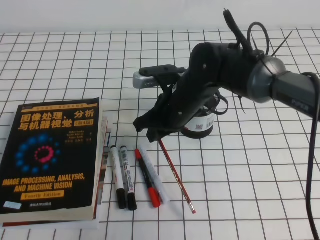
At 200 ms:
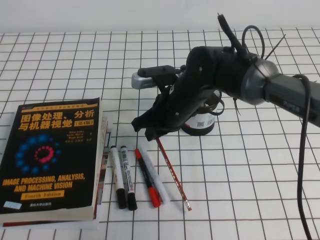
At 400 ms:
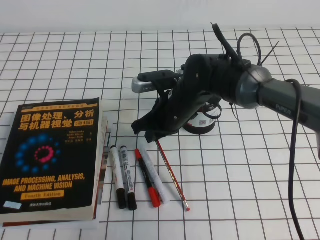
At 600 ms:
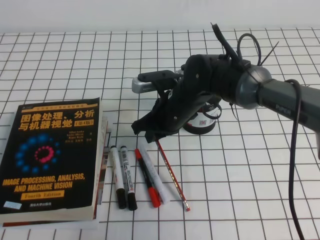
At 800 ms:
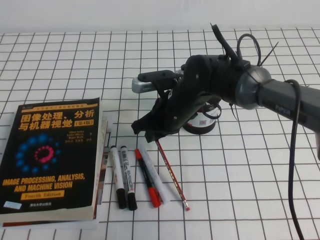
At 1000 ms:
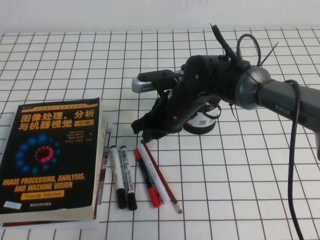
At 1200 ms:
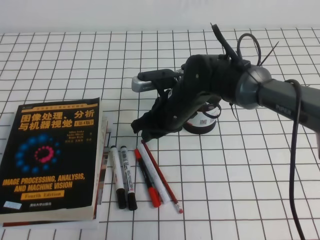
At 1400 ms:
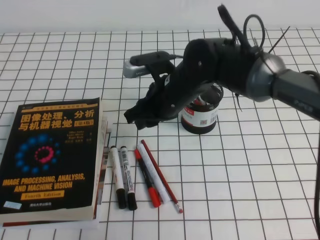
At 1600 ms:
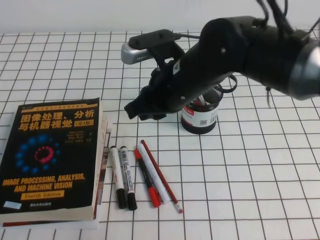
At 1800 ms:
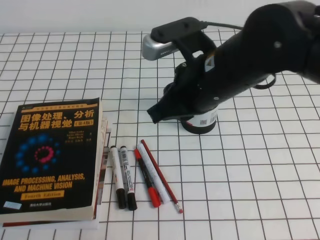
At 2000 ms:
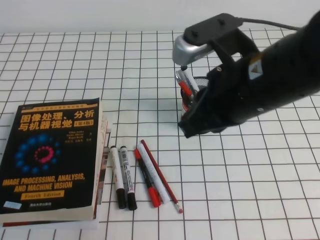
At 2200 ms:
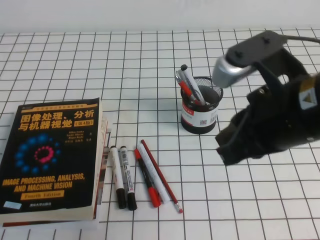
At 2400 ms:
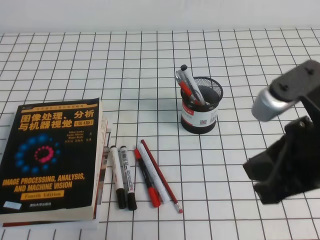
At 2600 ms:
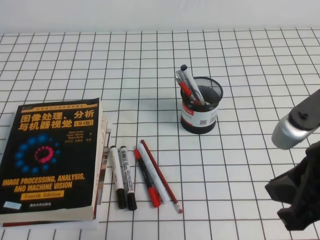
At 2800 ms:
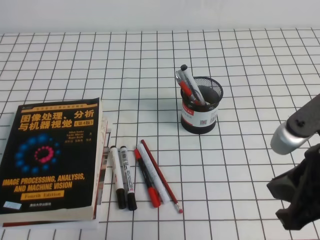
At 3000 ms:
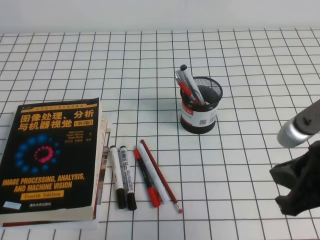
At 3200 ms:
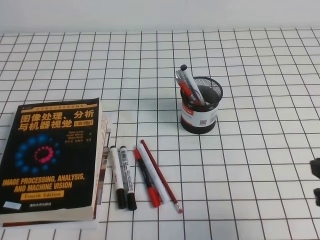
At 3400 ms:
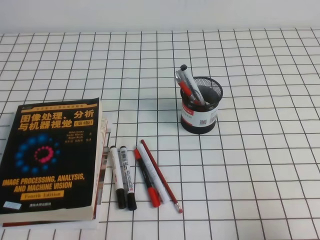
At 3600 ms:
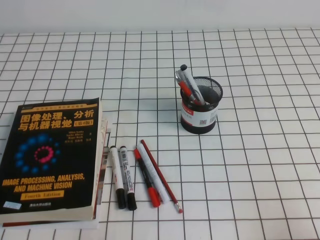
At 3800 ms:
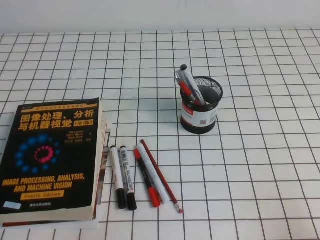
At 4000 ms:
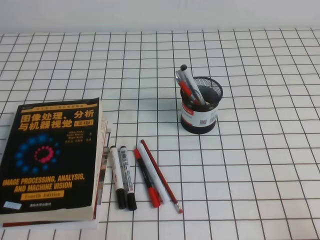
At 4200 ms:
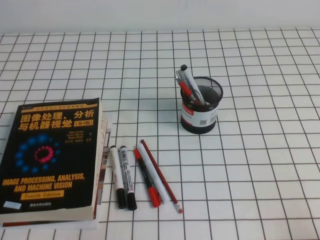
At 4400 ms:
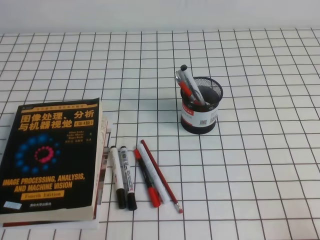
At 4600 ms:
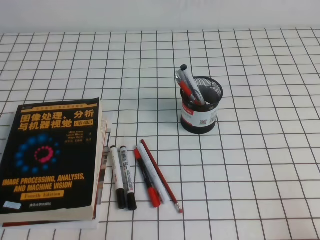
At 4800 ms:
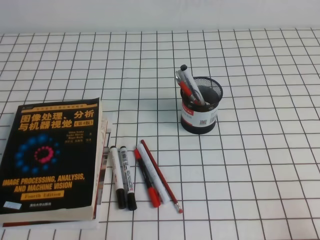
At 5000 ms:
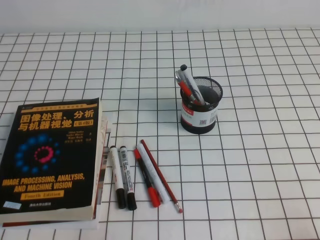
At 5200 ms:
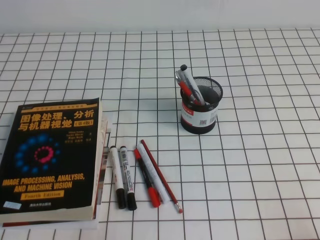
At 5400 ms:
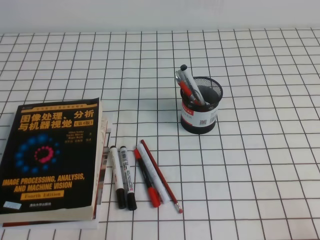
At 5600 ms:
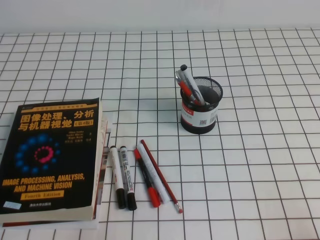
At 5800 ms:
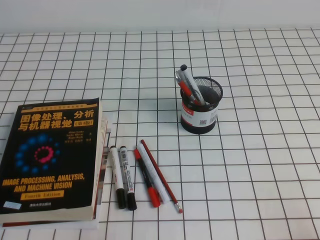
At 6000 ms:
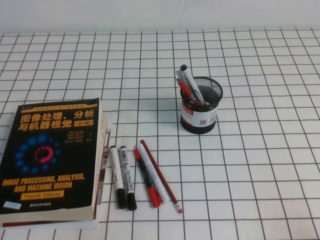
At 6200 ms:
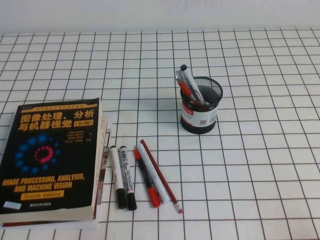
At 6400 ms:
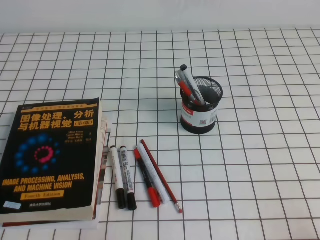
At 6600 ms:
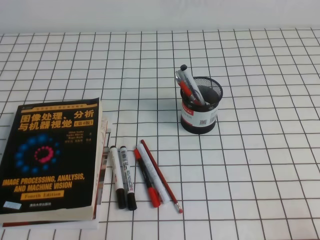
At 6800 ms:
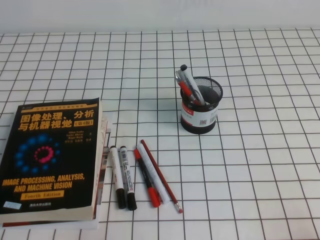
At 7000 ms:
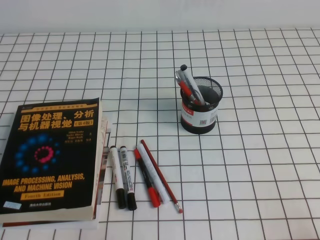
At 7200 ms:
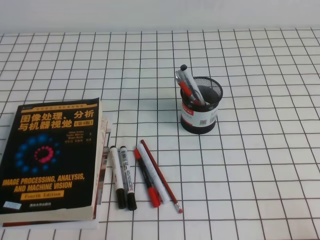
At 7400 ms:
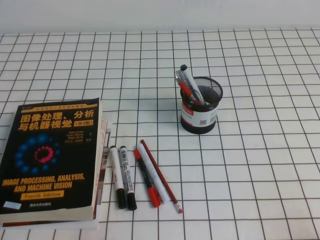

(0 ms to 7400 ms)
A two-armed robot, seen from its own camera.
Step, 0 ms - 7400 ms: Pick up the pen from the pen holder.
0 ms - 1400 ms: The right gripper opens.
1400 ms - 3000 ms: The right gripper moves backward and to the right, about 30 cm, and closes.
3000 ms - 4400 ms: The right gripper moves downward, to the right and backward, approximately 20 cm.
6000 ms - 7400 ms: The two grippers keep their place.
